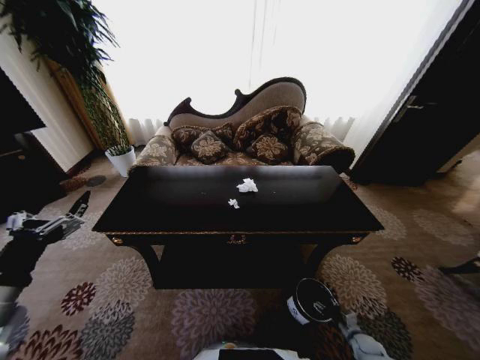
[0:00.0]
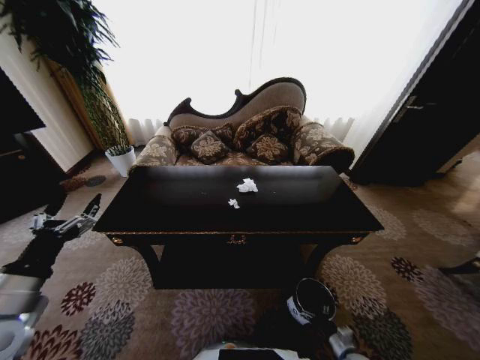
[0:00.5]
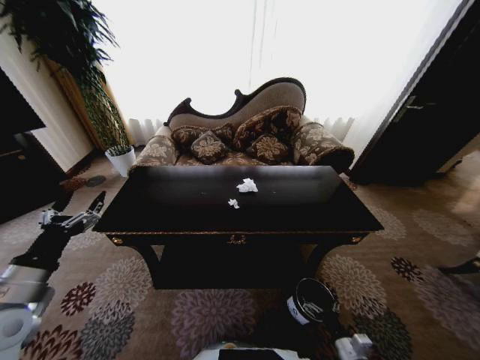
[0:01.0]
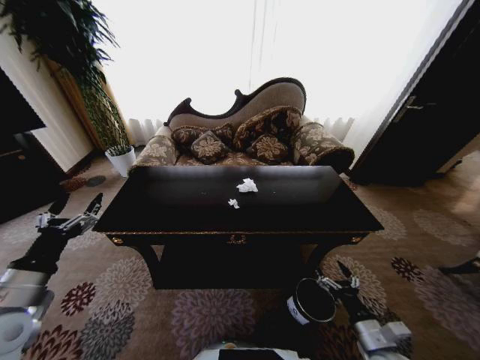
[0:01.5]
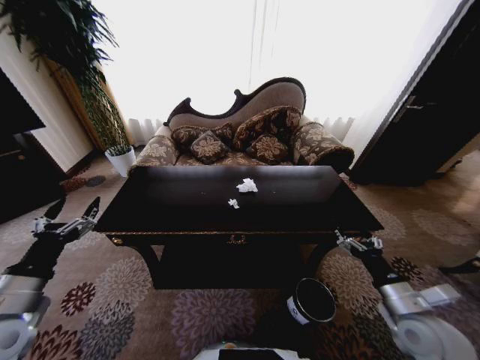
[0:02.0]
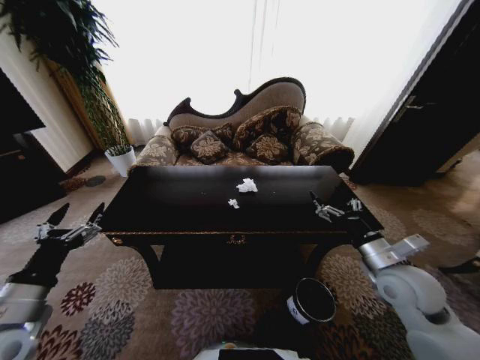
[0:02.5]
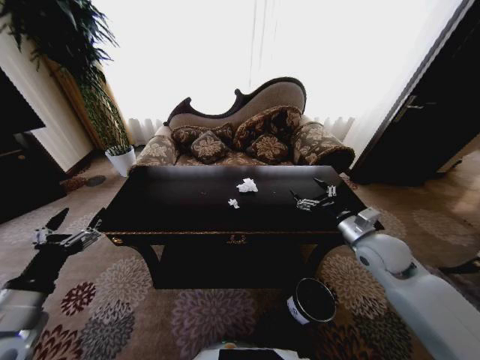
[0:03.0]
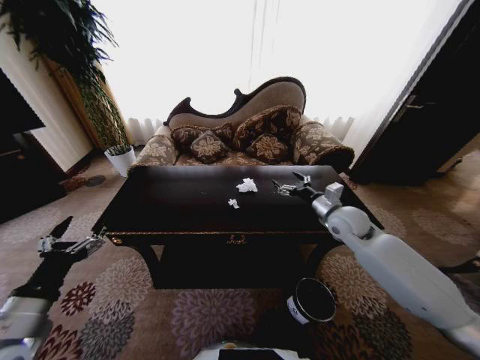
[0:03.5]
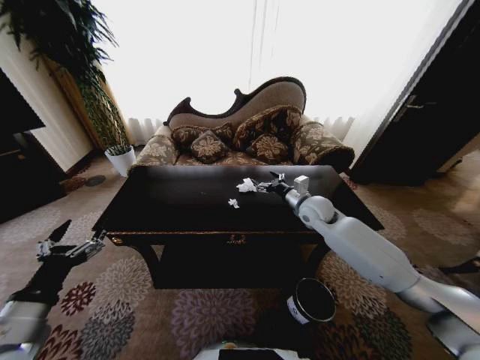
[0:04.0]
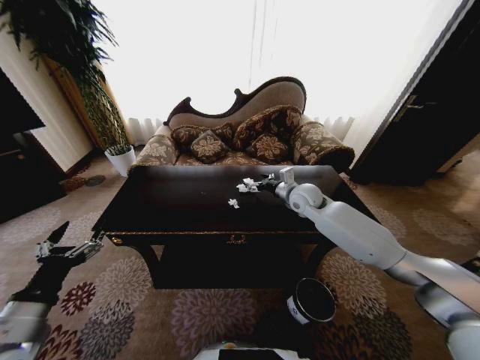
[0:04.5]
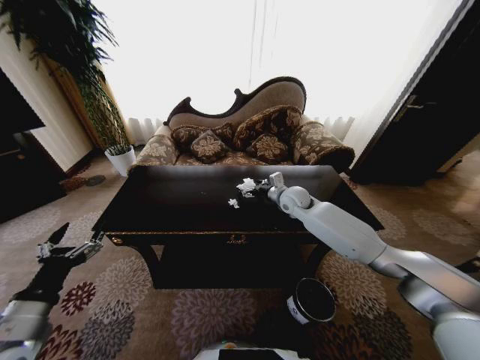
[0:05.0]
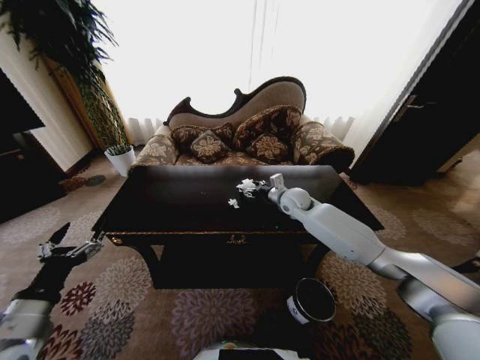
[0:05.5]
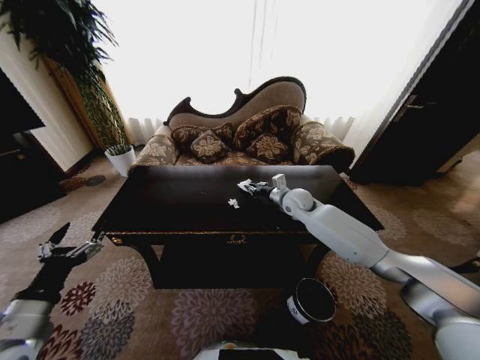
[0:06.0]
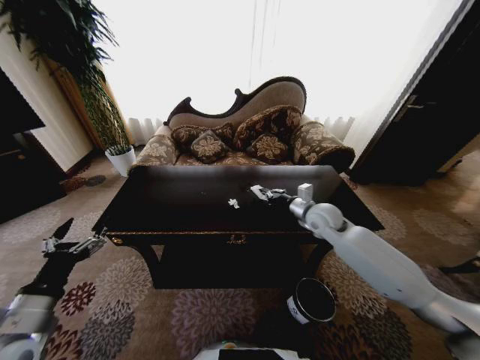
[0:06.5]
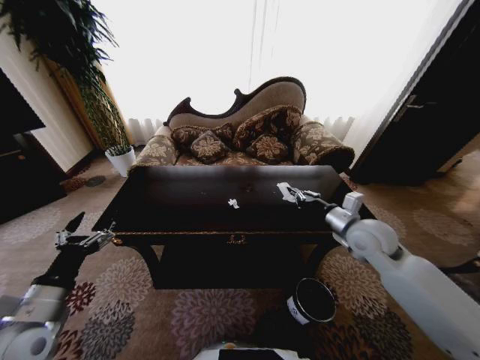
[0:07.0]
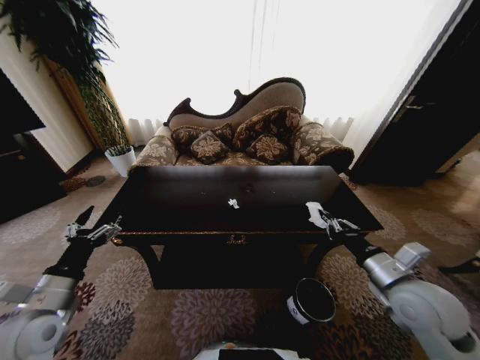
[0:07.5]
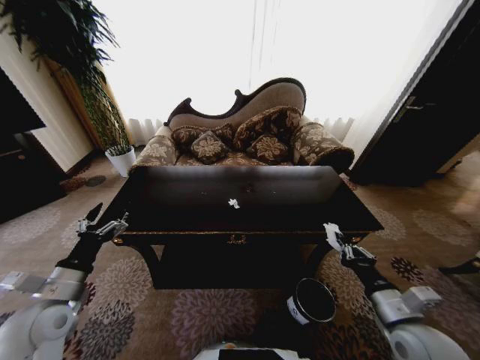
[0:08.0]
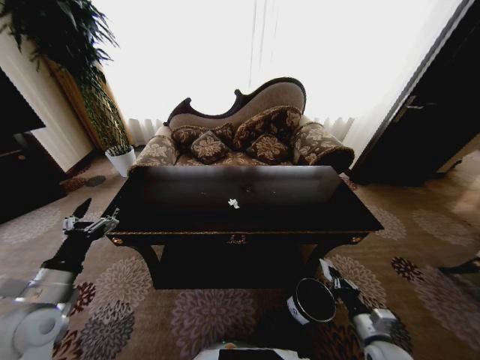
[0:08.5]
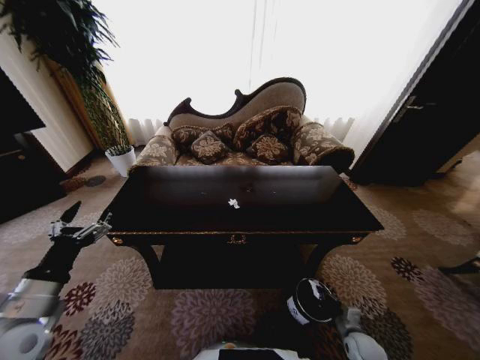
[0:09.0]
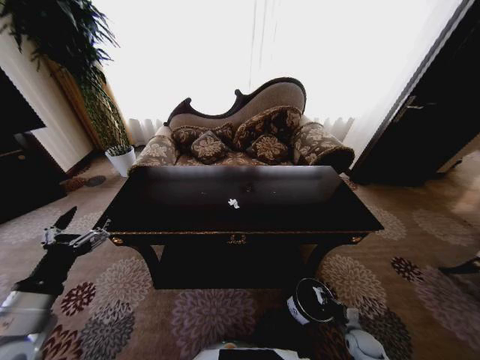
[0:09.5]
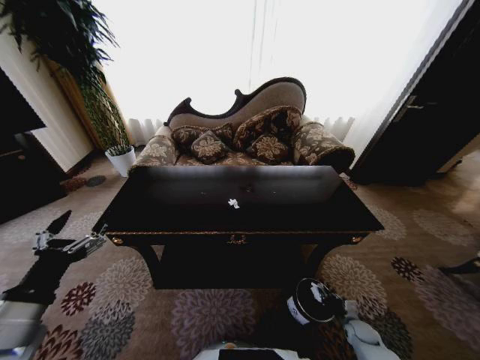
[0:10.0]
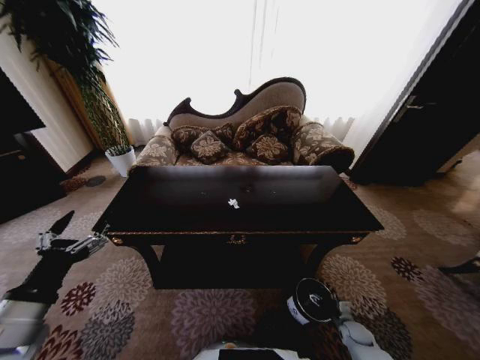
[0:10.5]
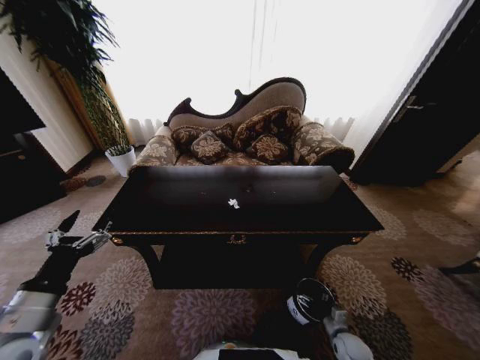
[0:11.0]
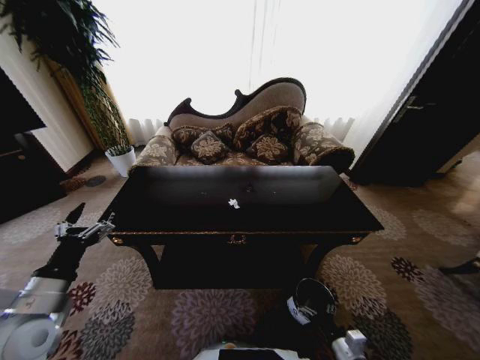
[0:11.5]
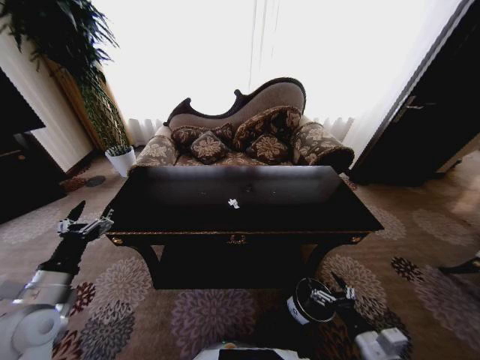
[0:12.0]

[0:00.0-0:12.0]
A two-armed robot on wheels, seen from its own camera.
Task of the whole recording: Move to the front of the table and place the trash on the table into the trash bin.
0:00.0 to 0:02.0: The right gripper goes about 35 cm upward, and opens up.
0:02.0 to 0:04.0: The right gripper travels forward and to the left by approximately 35 cm.
0:04.0 to 0:06.0: The right gripper goes approximately 5 cm forward, and closes.
0:06.0 to 0:08.0: The right gripper is displaced backward by about 35 cm. The left gripper moves forward, some 5 cm.
0:08.0 to 0:10.0: The right gripper travels downward by approximately 35 cm. Meanwhile the left gripper heads backward and upward, covering approximately 10 cm.
0:10.0 to 0:12.0: The right gripper goes some 30 cm upward, backward and to the left, and opens its fingers, while the left gripper is displaced forward by roughly 5 cm.

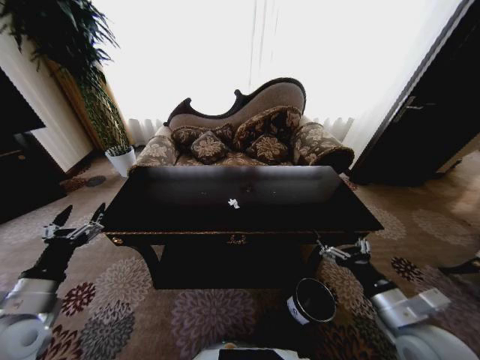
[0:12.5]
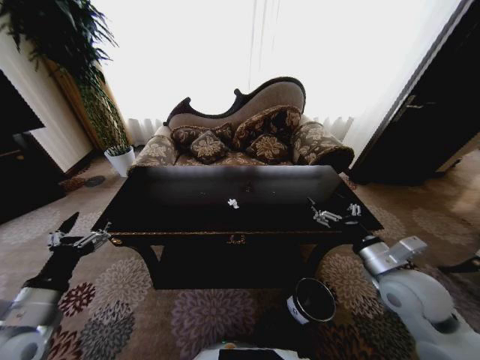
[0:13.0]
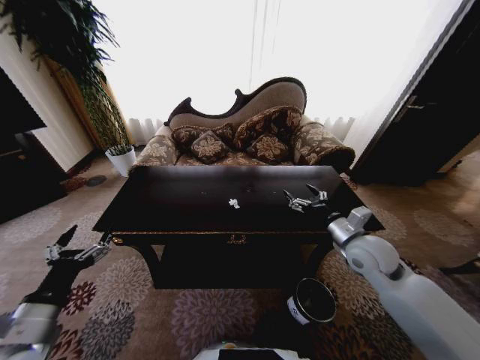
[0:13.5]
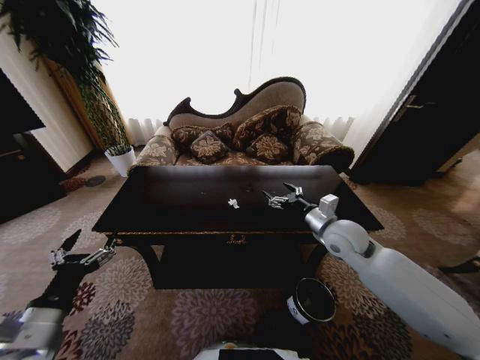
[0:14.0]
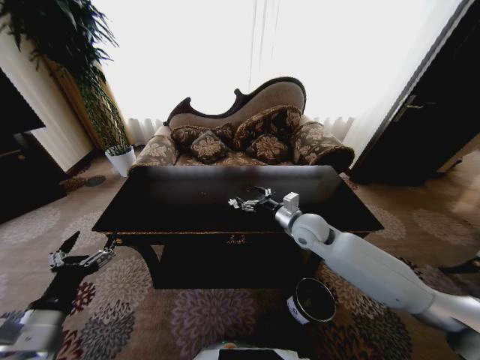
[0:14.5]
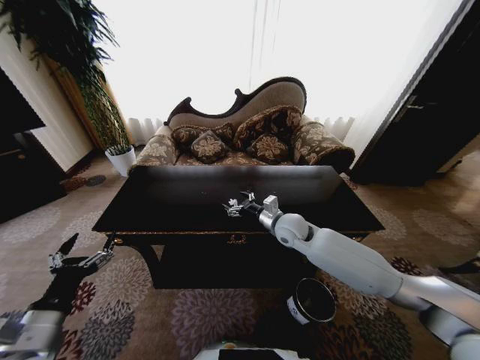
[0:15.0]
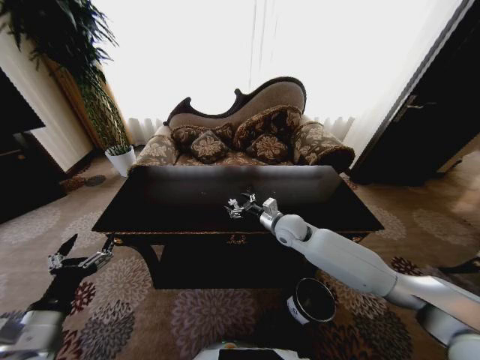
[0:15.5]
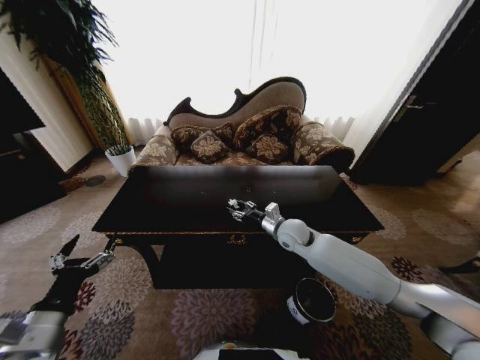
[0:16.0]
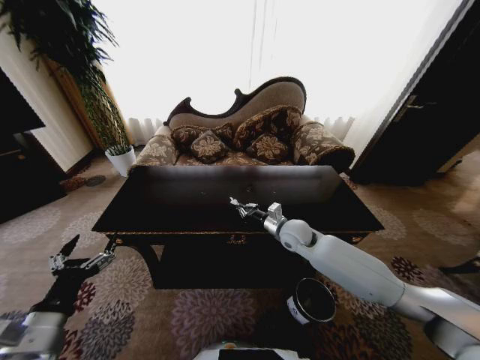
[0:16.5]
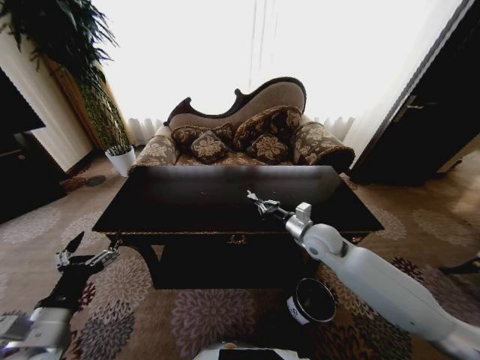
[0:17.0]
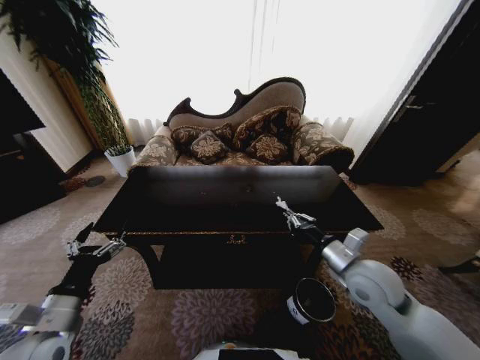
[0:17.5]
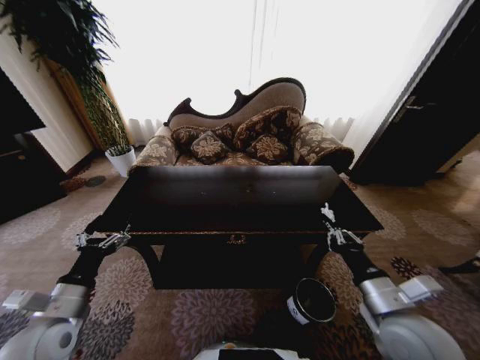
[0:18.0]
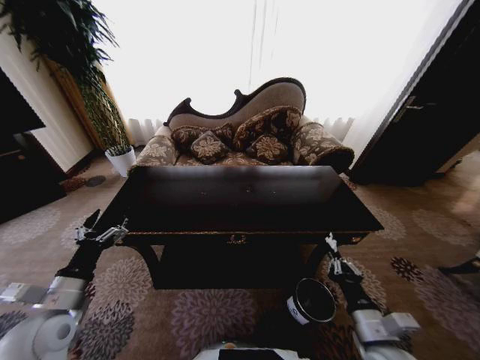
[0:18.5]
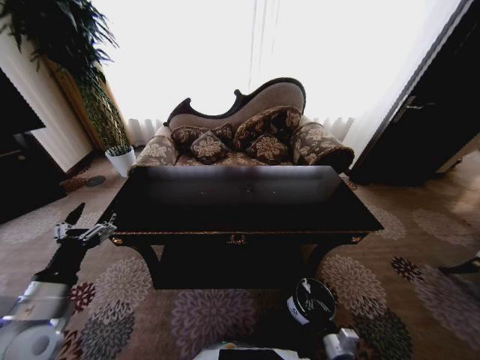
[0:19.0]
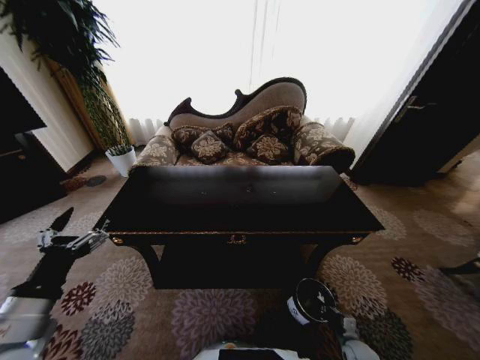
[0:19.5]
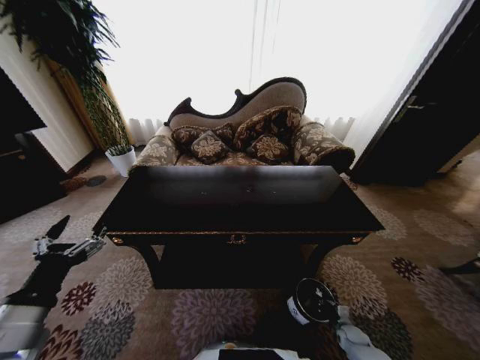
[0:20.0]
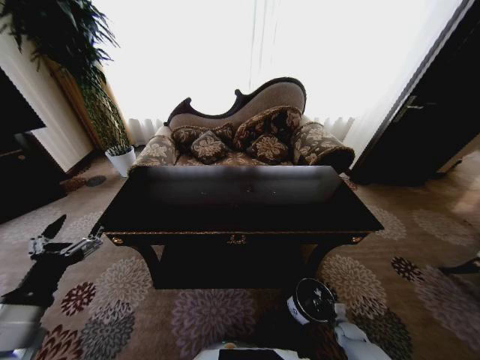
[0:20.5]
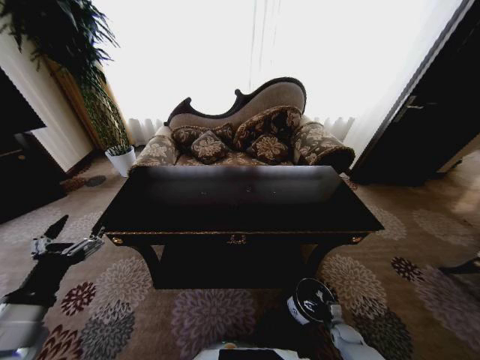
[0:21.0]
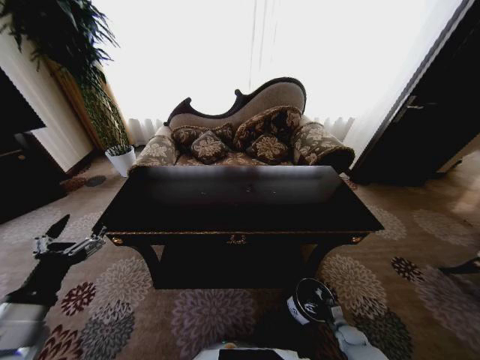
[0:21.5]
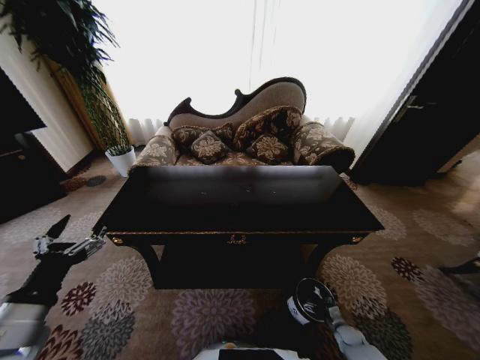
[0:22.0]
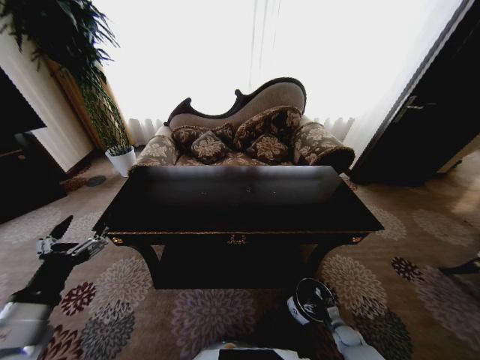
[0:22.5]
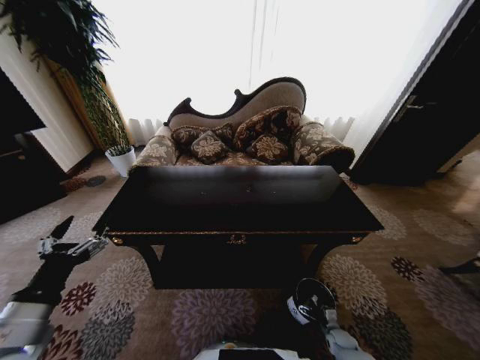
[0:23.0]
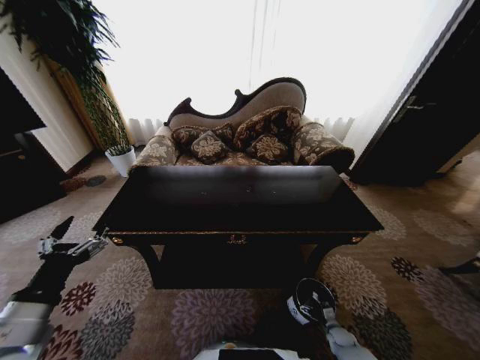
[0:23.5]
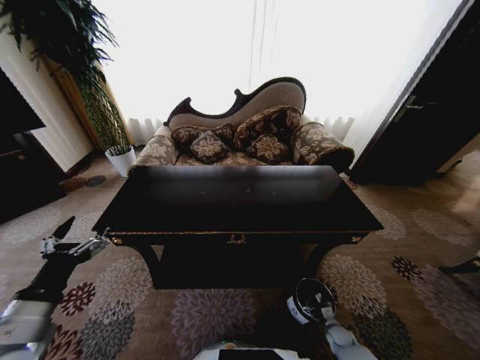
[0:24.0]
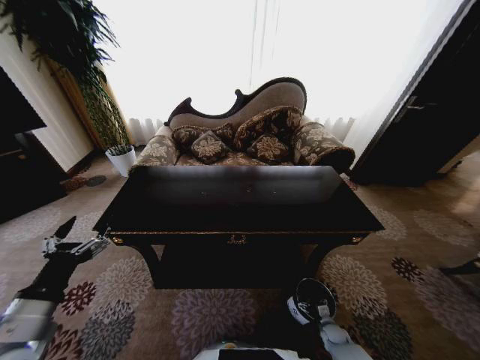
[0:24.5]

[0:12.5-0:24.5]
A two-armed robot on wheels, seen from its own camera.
Task of the whole recording: Move to the front of the table and place the trash on the table into the trash bin.
0:12.5 to 0:14.5: The left gripper heads backward, covering approximately 5 cm. Meanwhile the right gripper travels forward and to the left by roughly 30 cm.
0:14.5 to 0:16.5: The right gripper moves downward, some 5 cm, and closes up.
0:16.5 to 0:18.5: The left gripper is displaced forward by approximately 5 cm. Meanwhile the right gripper heads backward, covering approximately 30 cm.
0:18.5 to 0:20.5: The right gripper goes roughly 35 cm downward and to the right; the left gripper travels backward and upward by approximately 10 cm.

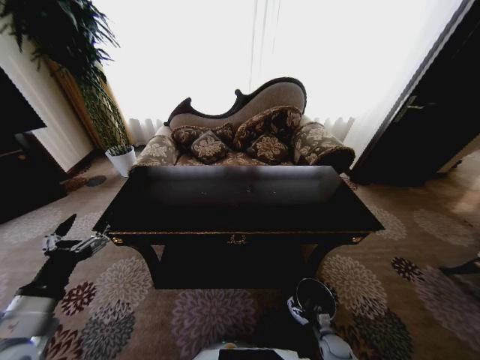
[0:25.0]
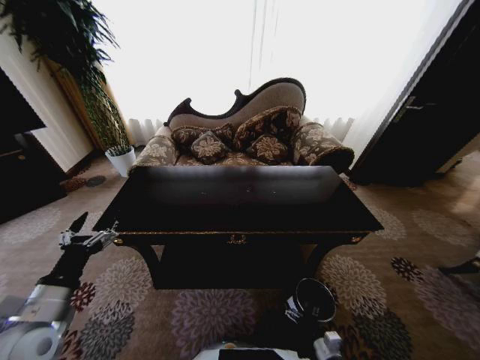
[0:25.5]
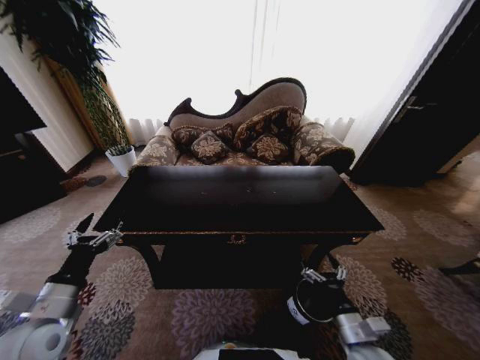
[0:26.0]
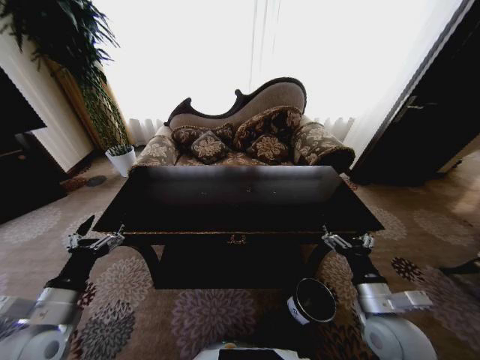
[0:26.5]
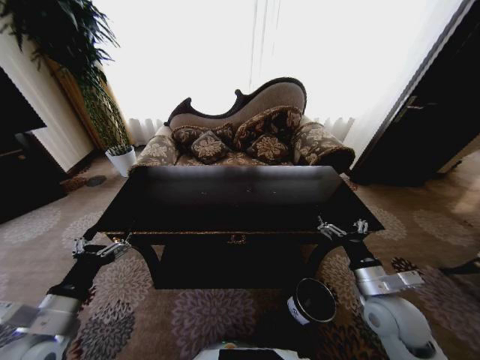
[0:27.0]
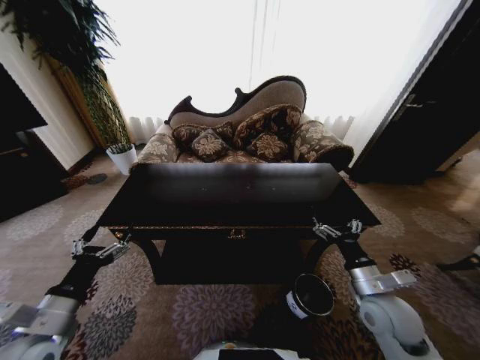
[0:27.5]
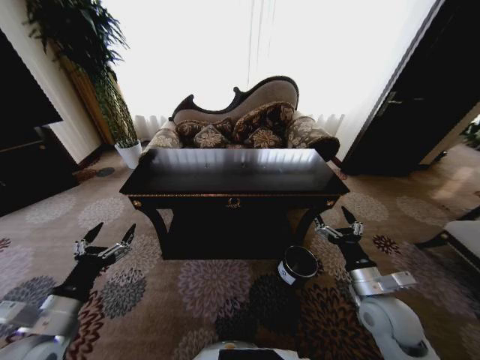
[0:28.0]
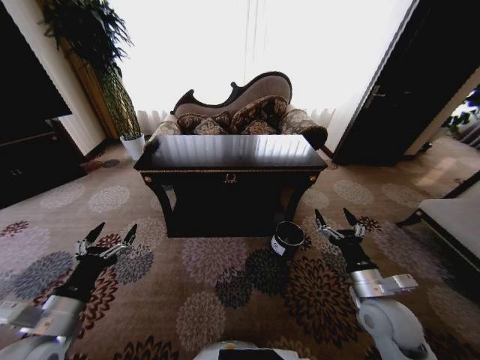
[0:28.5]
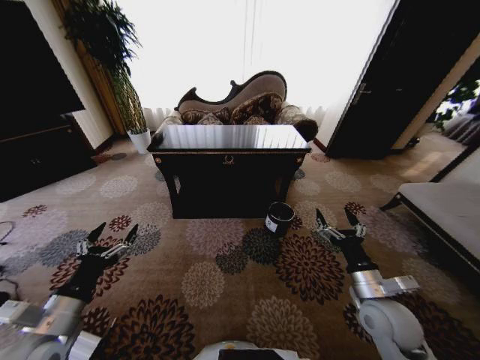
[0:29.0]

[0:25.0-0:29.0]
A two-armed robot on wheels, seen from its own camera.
Task of the whole recording: Move to the front of the table and place the trash on the table into the trash bin.
0:25.0 to 0:27.0: The right gripper shifts about 35 cm upward.
